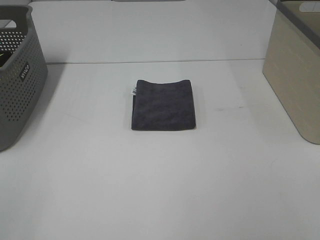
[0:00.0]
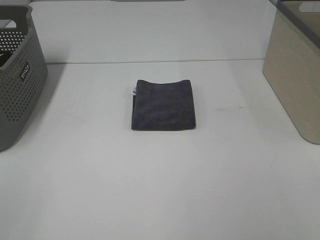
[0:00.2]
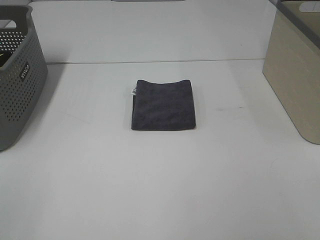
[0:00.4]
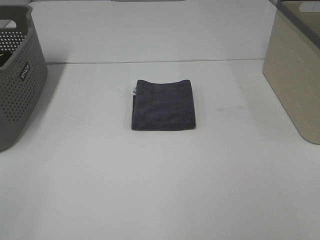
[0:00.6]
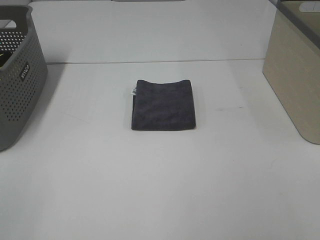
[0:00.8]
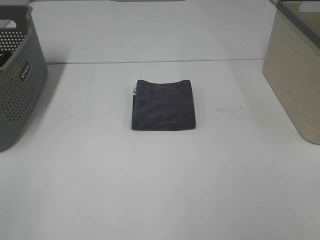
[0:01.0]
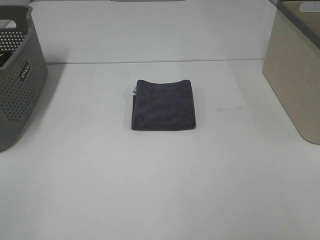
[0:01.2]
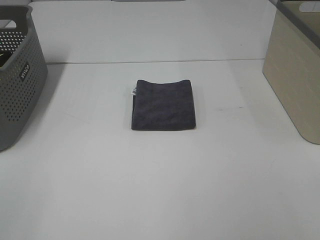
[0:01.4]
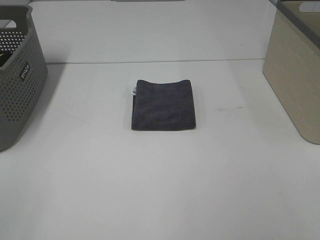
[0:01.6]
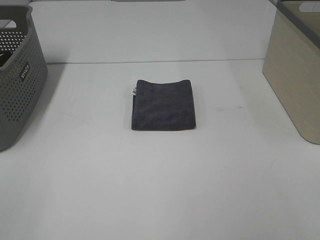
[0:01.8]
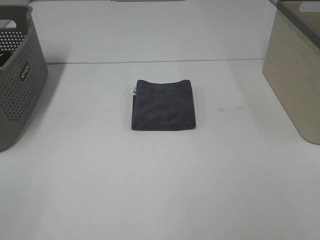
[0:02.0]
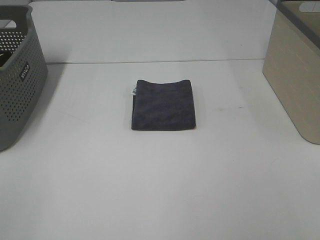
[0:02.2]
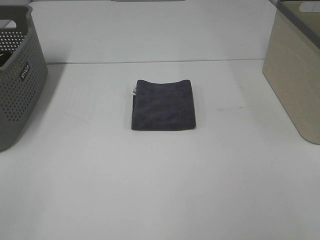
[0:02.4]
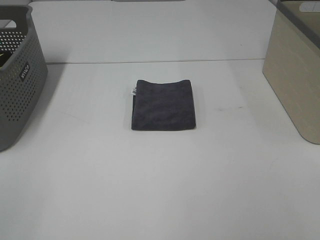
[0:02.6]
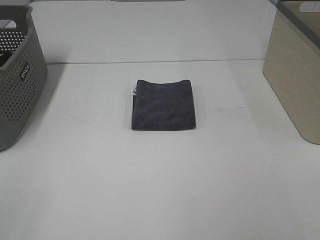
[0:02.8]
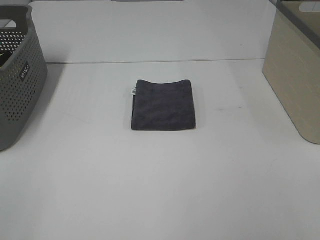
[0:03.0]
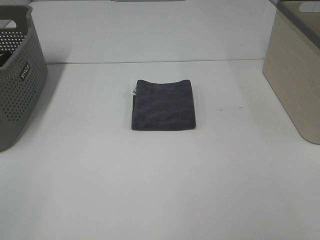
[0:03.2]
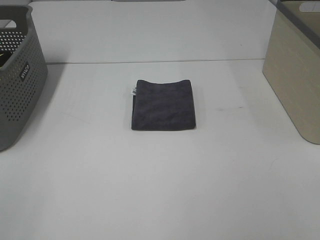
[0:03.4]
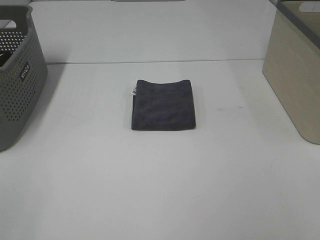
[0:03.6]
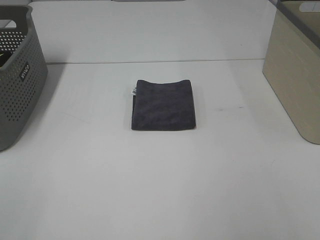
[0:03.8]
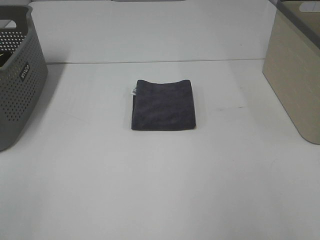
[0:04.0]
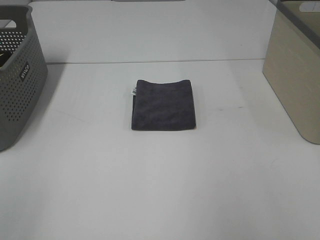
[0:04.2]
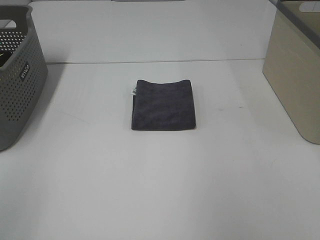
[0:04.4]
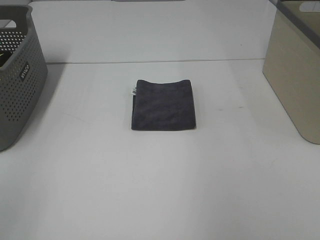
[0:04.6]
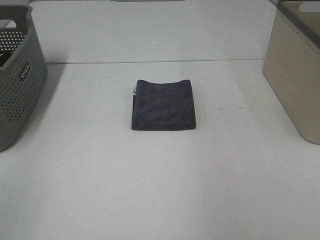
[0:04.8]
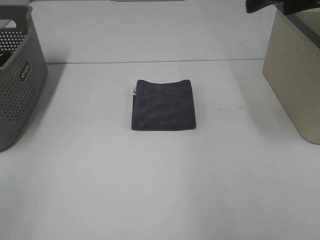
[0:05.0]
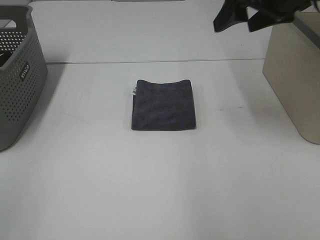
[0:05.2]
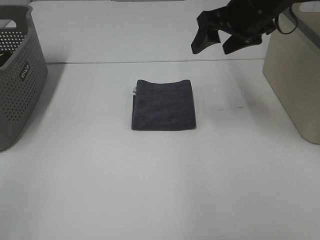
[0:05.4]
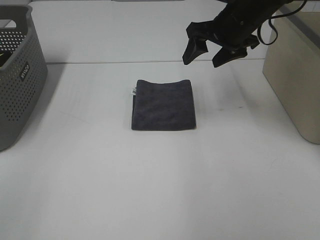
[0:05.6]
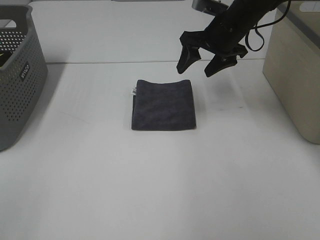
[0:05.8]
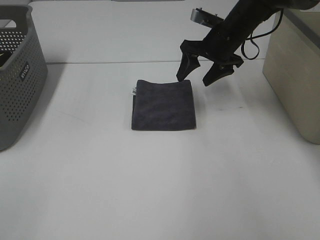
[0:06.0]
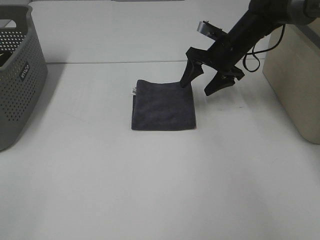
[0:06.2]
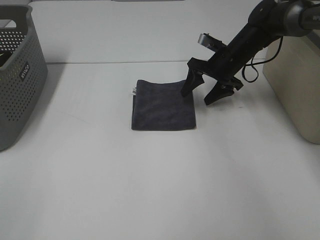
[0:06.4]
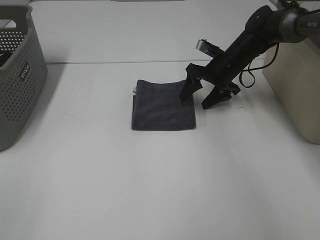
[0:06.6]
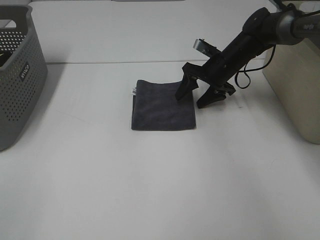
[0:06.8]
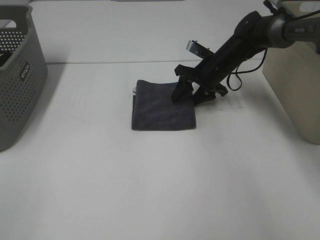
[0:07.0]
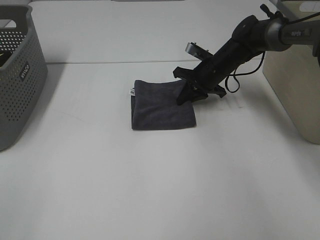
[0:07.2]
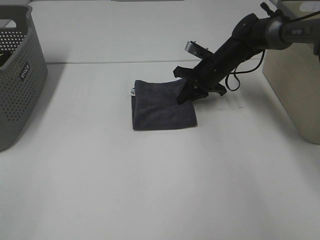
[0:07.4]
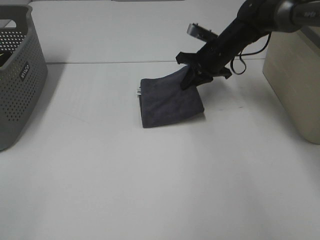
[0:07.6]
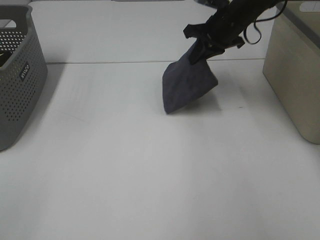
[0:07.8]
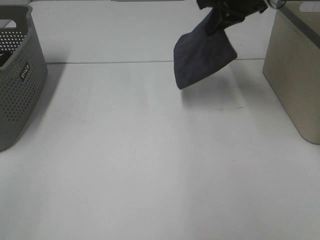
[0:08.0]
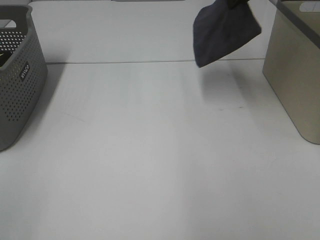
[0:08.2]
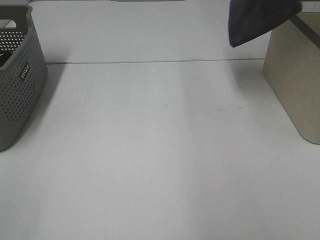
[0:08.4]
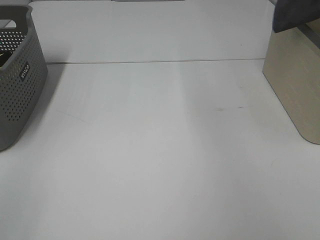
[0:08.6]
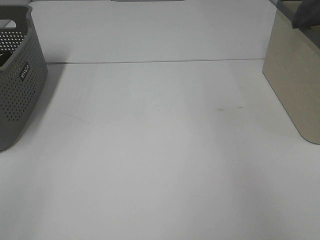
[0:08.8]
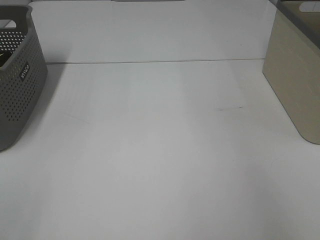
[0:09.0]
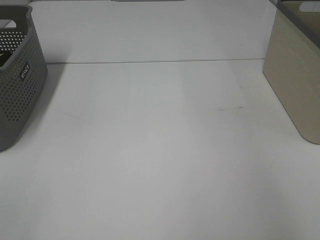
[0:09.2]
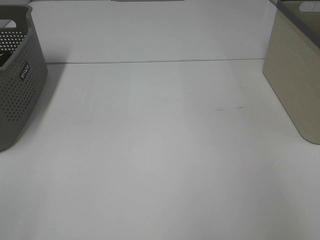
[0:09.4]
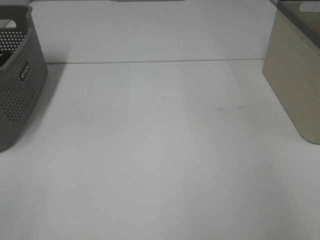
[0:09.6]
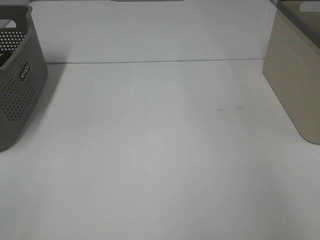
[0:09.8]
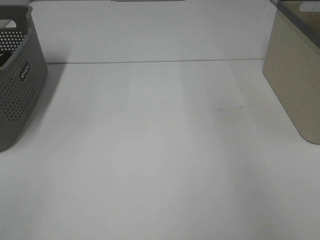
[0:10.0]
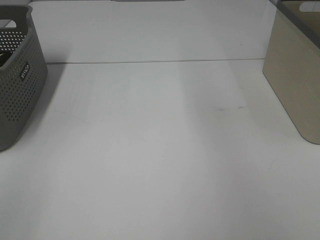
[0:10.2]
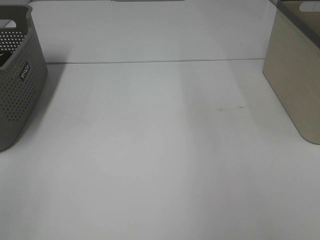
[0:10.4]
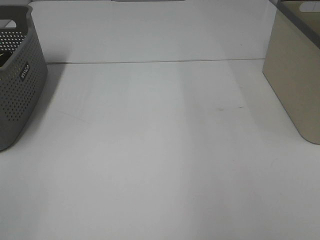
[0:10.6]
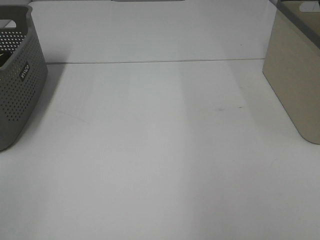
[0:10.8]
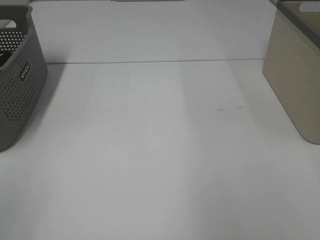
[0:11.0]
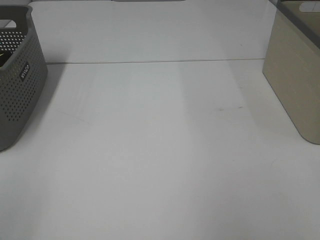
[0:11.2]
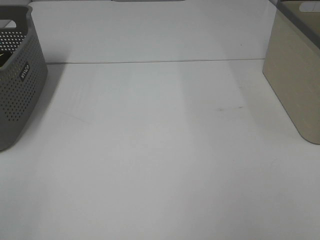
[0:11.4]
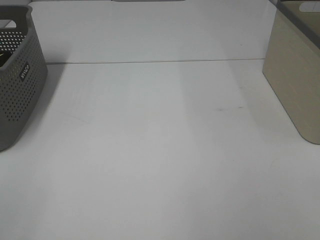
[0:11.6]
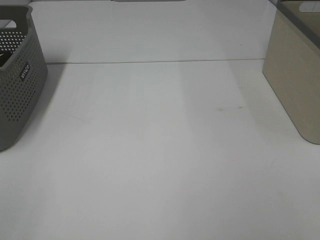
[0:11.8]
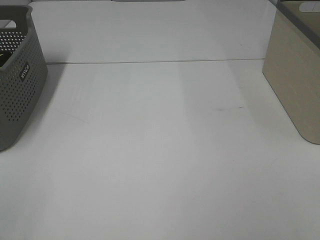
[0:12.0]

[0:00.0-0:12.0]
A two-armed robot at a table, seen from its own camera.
Step, 0:00.0 to 0:07.2: Right hand: grab the folded grey towel.
Step, 0:07.4 to 0:09.8: Right hand: place the grey towel in right basket.
0:00.0 to 0:03.0: The two grippers keep their place.
0:04.4 to 0:06.0: The right gripper travels forward, downward and to the left by roughly 35 cm.
0:06.0 to 0:07.6: The right gripper moves some 10 cm downward and comes back, and closes its fingers.
0:07.6 to 0:09.0: The right gripper heads to the right and upward, covering about 35 cm.

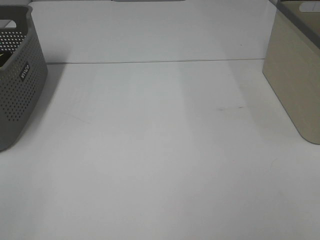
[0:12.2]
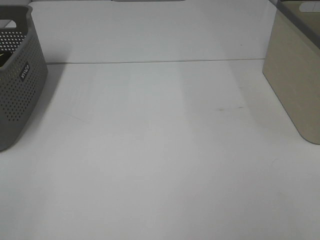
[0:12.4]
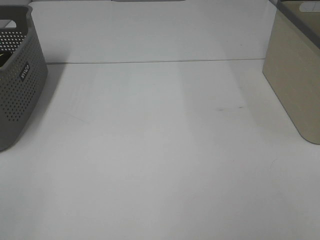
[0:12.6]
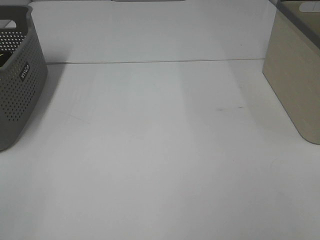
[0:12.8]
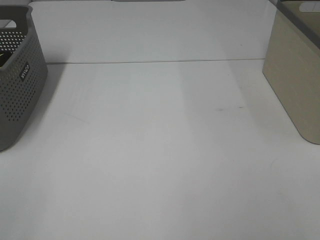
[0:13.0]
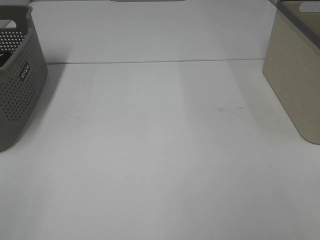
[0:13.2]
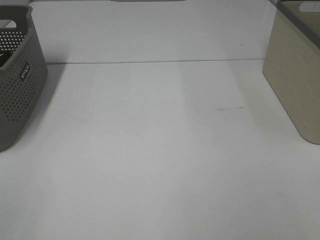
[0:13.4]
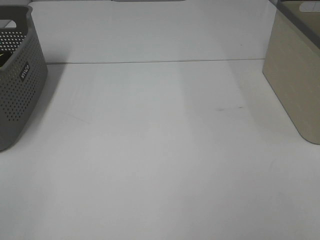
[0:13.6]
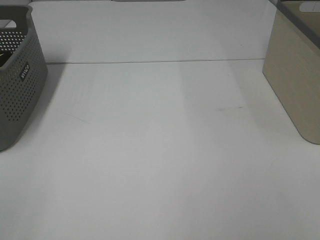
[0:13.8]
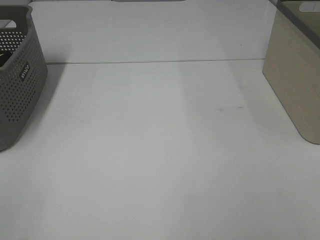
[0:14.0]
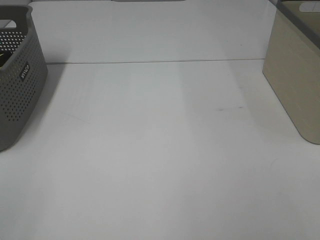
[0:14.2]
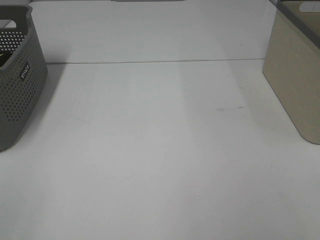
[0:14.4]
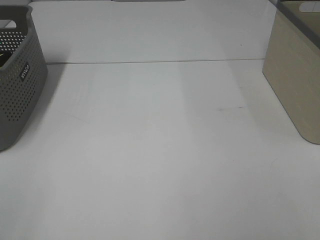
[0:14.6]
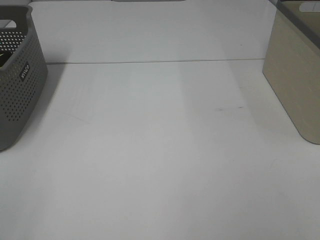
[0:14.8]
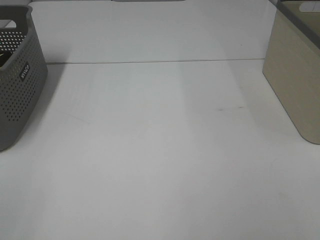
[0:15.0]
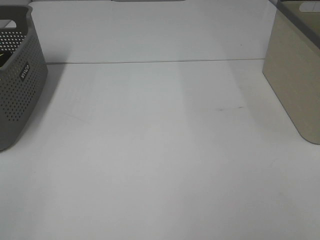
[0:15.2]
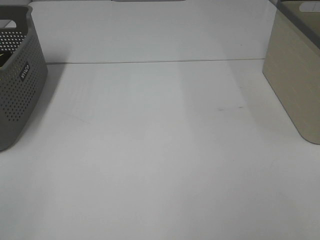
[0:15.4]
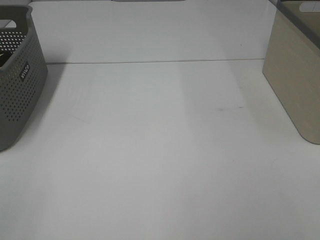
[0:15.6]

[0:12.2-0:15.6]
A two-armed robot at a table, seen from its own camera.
0:12.2 to 0:15.6: Both grippers stay about where they are.

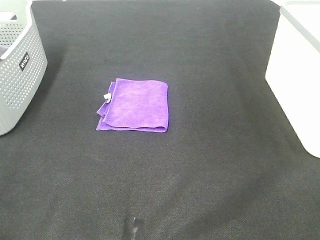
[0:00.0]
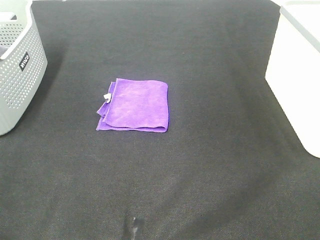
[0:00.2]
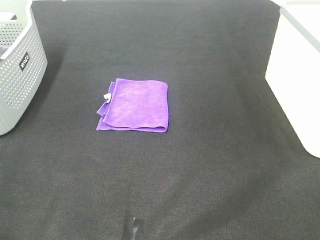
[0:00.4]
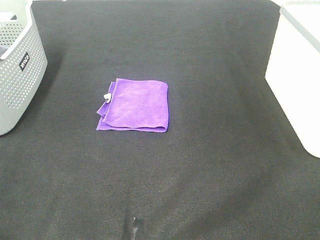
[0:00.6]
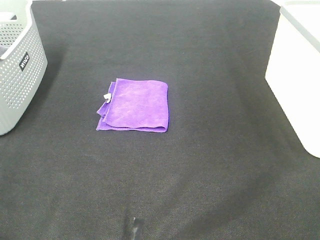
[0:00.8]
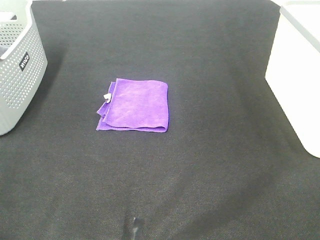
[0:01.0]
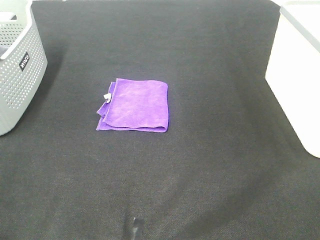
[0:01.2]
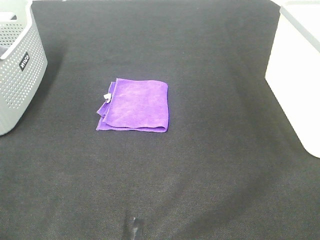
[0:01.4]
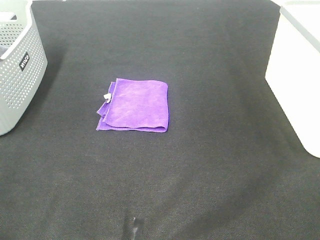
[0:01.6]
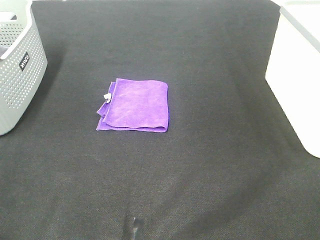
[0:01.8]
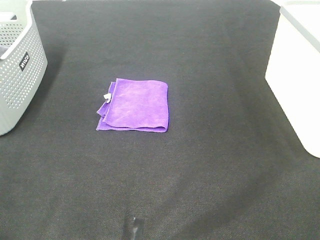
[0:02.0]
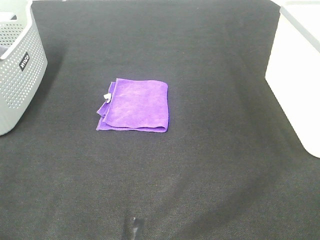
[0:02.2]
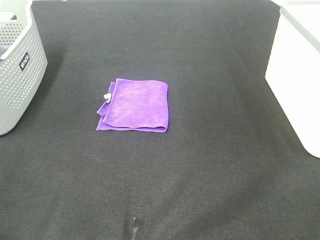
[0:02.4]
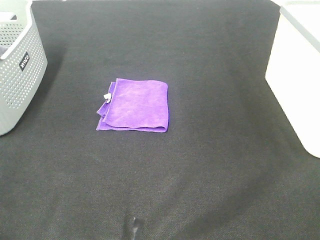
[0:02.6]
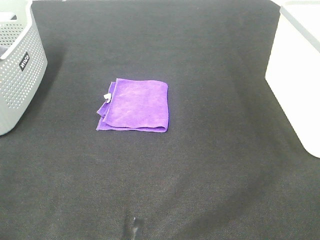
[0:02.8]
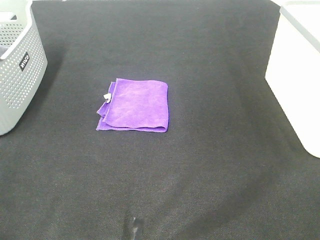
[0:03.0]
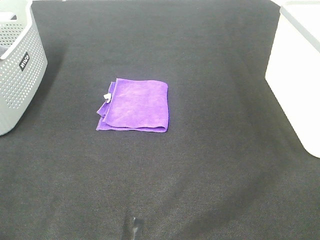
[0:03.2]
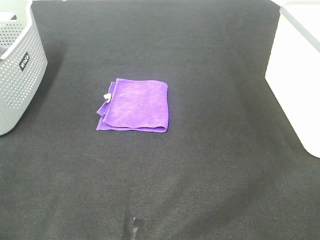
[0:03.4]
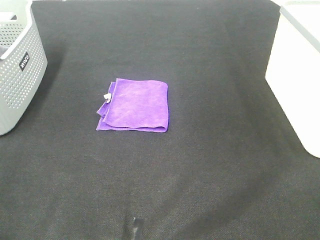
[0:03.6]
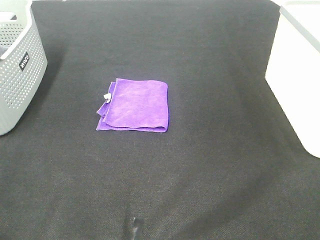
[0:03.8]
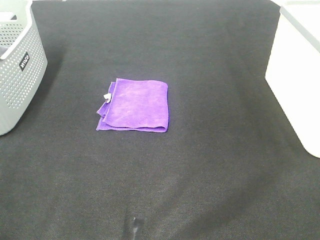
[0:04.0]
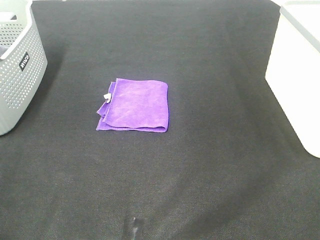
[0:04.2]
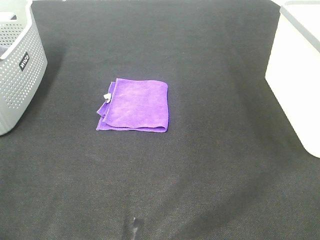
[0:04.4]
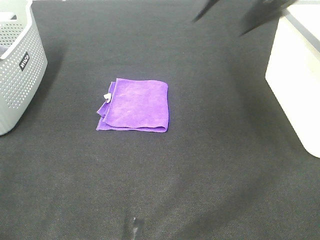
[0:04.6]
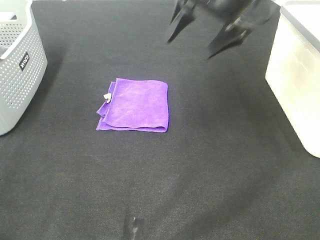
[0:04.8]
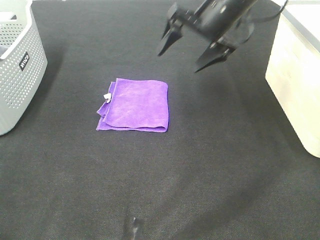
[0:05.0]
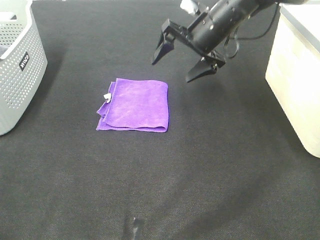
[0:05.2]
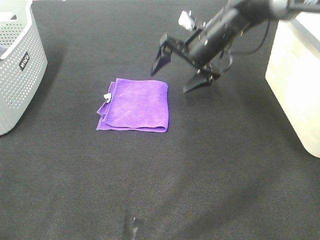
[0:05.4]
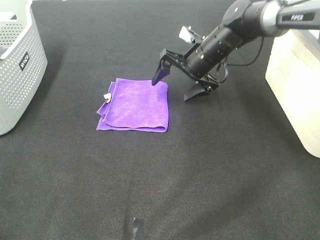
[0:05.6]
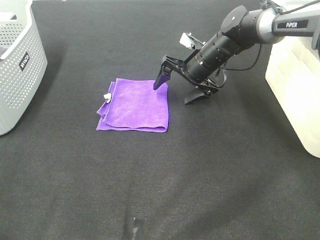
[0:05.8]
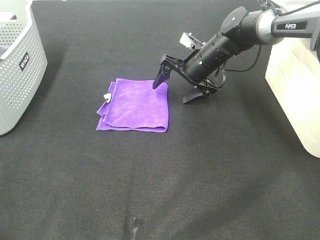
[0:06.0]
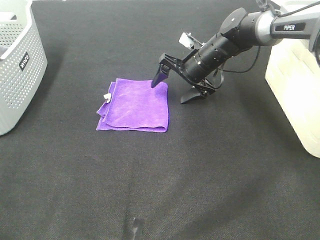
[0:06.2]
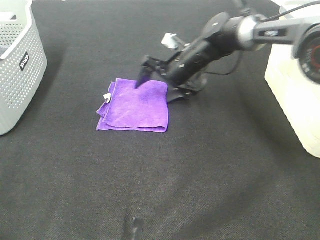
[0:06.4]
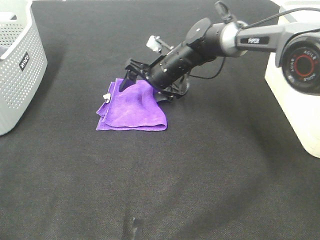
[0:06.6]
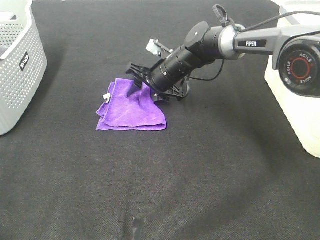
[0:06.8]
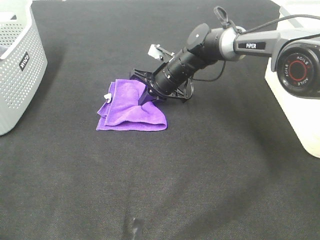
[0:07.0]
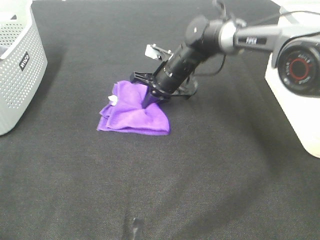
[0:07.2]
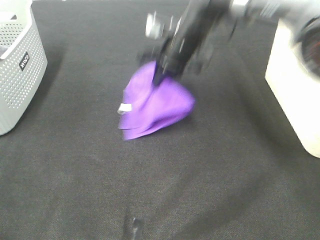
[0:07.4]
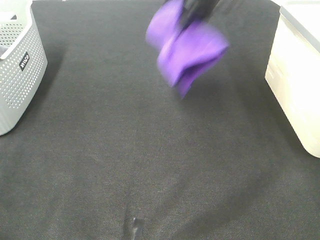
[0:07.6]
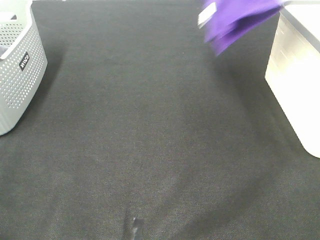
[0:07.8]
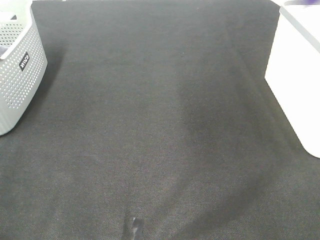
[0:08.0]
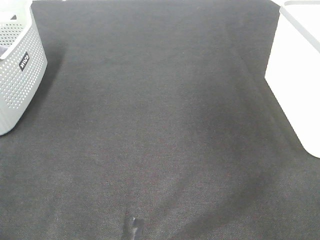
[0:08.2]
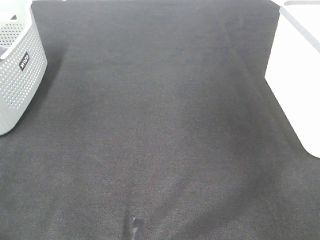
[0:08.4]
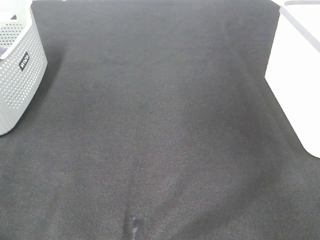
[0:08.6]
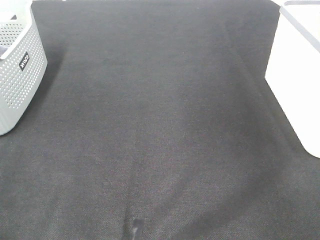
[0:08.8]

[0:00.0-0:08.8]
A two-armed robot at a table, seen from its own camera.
Step, 0:00.0 to 0:07.0: Right hand: grab the folded purple towel.
0:01.4 to 0:03.0: Both grippers stay about where they are.
0:04.4 to 0:05.8: The right gripper heads downward and forward, covering some 35 cm.
0:05.8 to 0:07.4: The right gripper moves upward, about 10 cm, and closes.
0:07.4 to 0:08.8: The right gripper is displaced to the right by about 35 cm.
